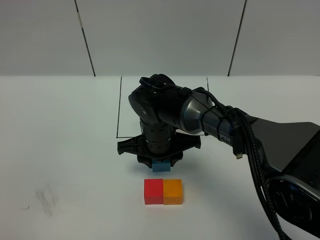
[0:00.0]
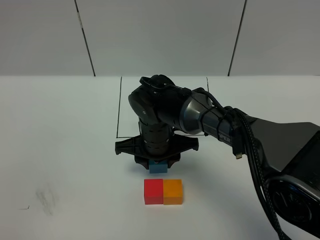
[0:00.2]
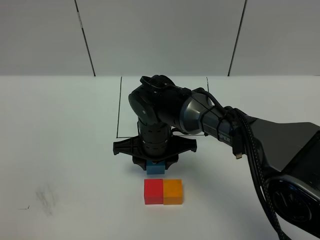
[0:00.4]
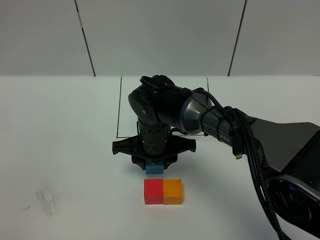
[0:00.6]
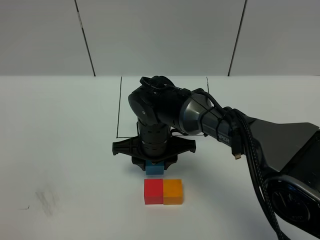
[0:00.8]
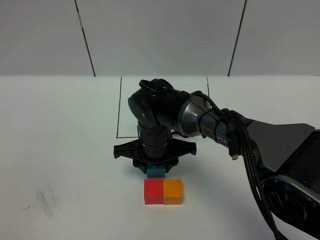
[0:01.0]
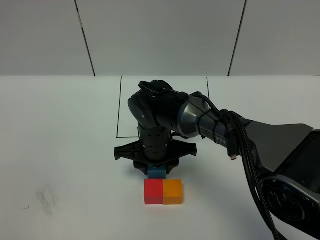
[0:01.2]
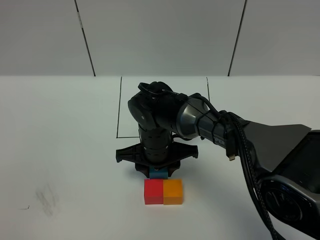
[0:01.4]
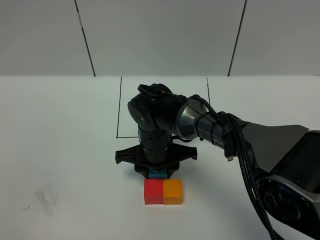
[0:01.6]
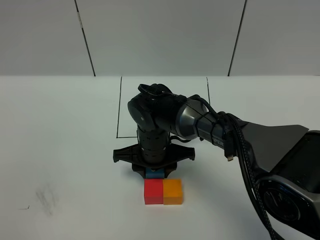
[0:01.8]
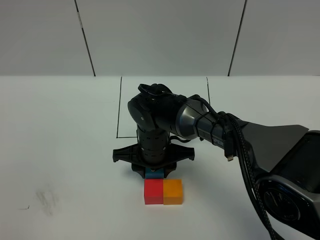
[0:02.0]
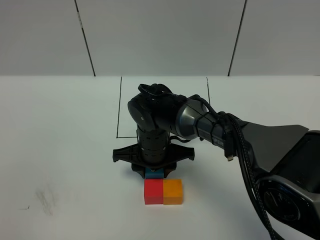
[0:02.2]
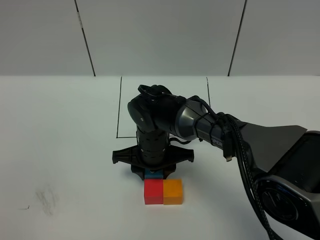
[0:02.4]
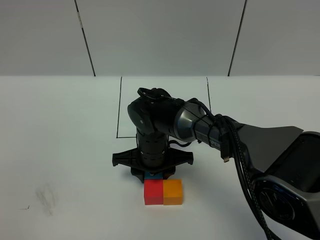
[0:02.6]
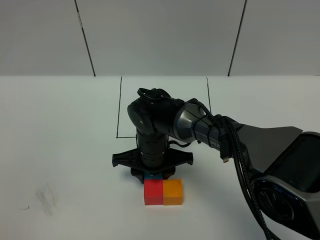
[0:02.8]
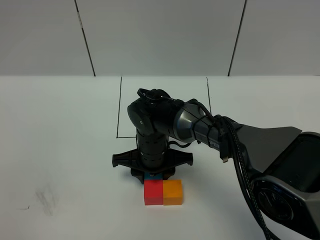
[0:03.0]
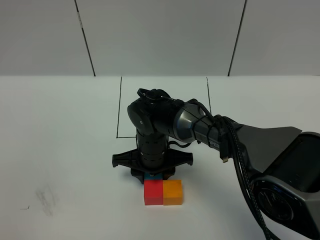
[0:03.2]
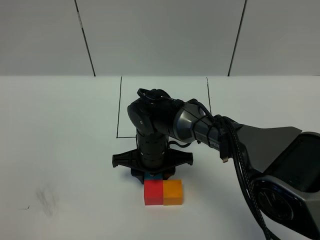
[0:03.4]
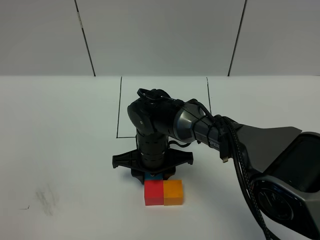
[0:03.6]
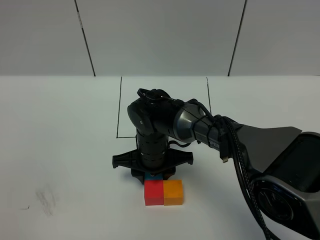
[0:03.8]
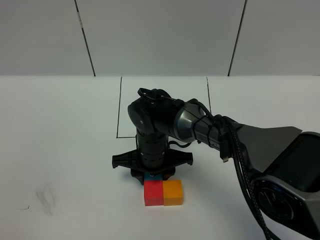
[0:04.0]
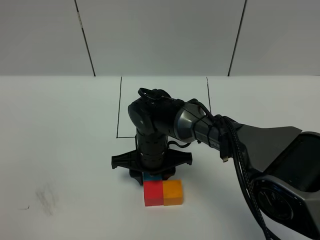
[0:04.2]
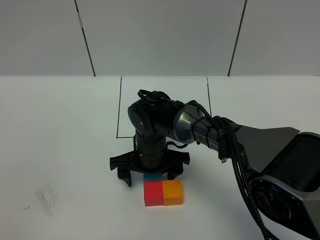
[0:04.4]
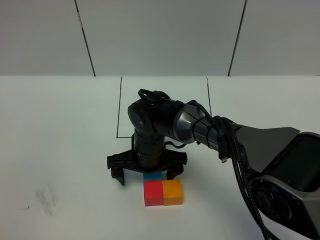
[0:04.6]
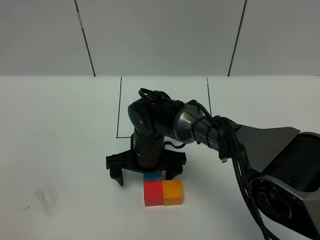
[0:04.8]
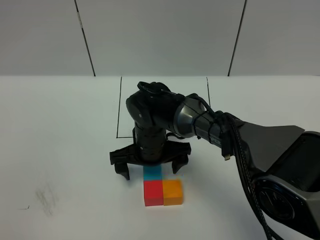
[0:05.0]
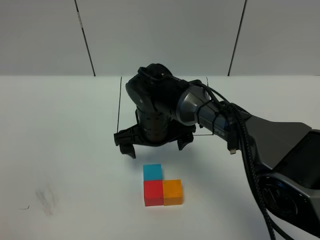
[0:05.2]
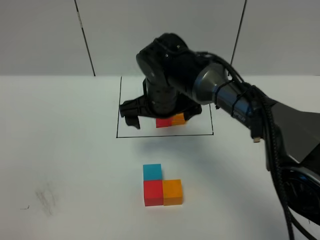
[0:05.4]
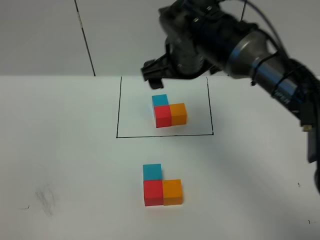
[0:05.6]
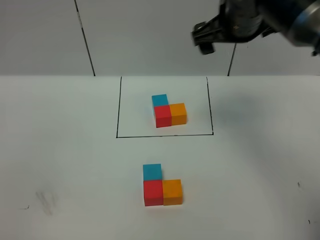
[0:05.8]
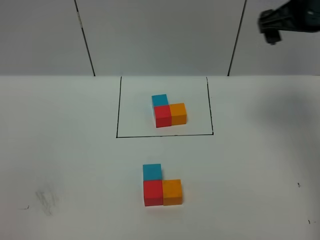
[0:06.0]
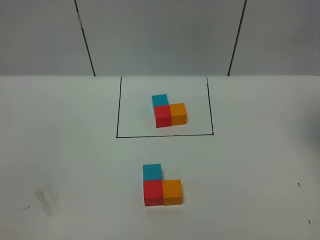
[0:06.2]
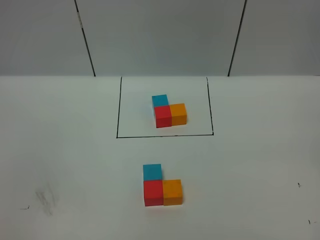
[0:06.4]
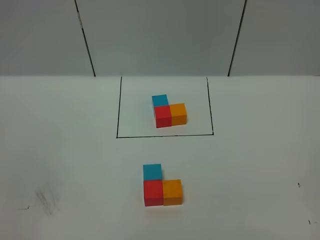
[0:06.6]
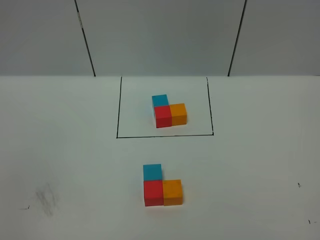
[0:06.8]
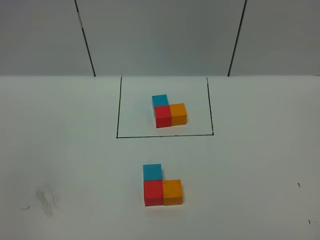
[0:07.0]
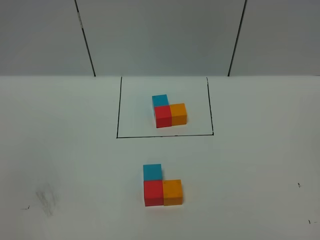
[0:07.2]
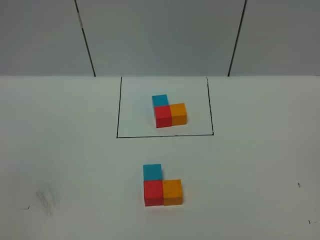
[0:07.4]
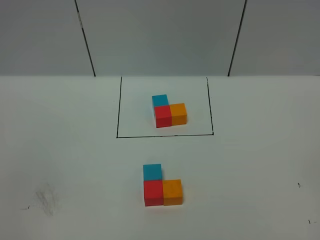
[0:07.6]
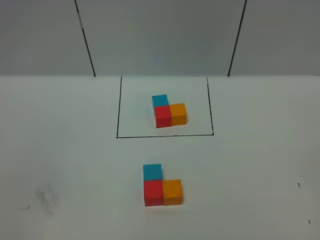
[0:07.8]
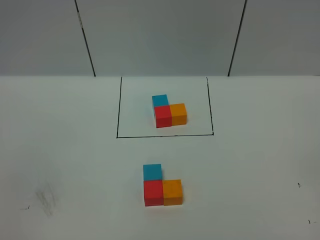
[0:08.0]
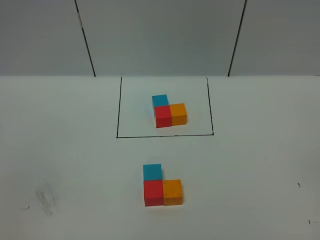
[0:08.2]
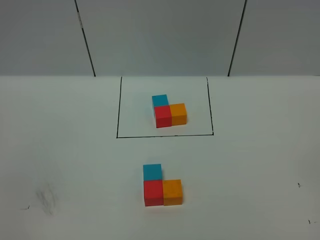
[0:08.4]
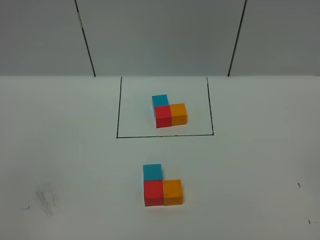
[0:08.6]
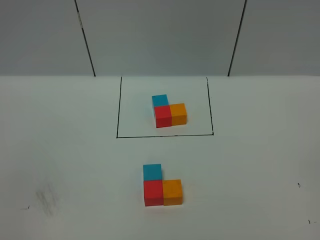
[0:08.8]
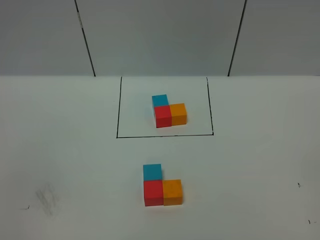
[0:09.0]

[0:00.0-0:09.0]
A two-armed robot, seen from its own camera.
Task of the whole recording: According to the building block template in front, assemble the scattered blocks together.
Step, 0:00.0 to 0:04.8: Put the blue cube on the behind of the red cube.
0:00.0 to 0:03.0: The grippers move only a little.
0:03.0 to 0:04.4: The right gripper opens up.
0:04.4 to 0:06.0: The right gripper goes about 40 cm to the right and upward.
0:06.0 to 0:07.6: The right gripper heads backward, covering some 40 cm.
0:07.6 to 0:09.0: Neither gripper changes place.

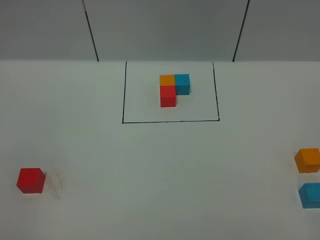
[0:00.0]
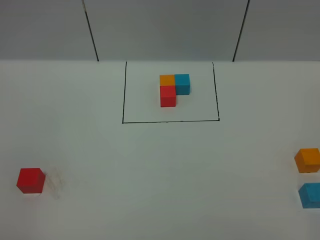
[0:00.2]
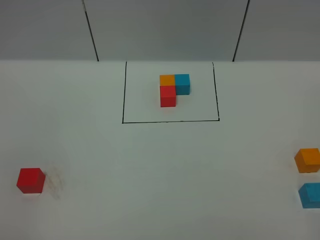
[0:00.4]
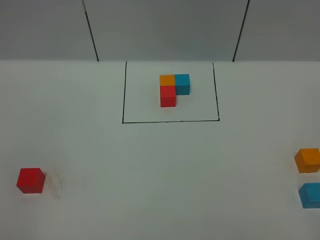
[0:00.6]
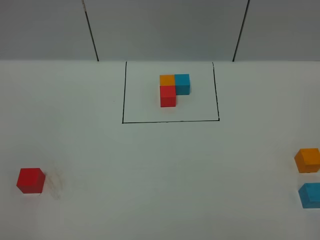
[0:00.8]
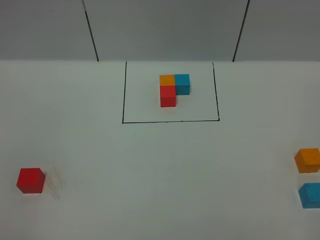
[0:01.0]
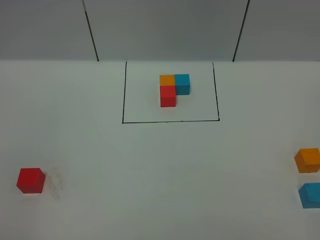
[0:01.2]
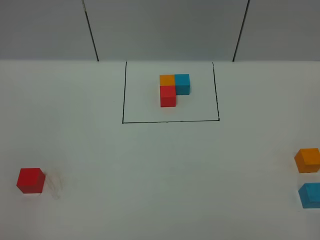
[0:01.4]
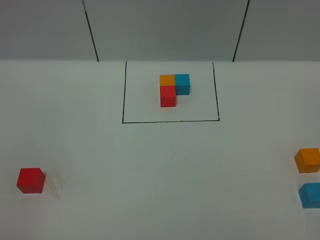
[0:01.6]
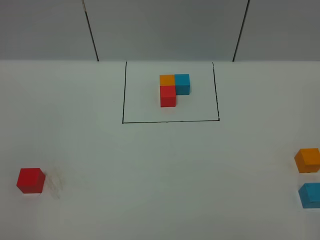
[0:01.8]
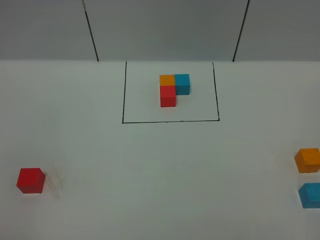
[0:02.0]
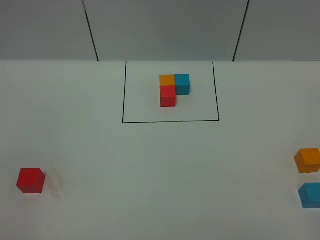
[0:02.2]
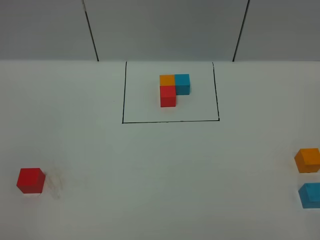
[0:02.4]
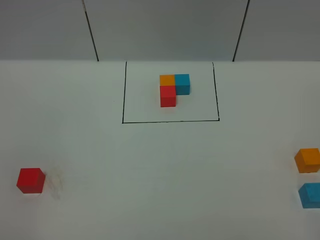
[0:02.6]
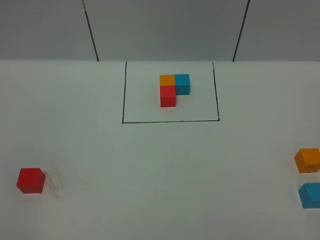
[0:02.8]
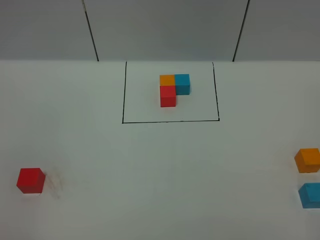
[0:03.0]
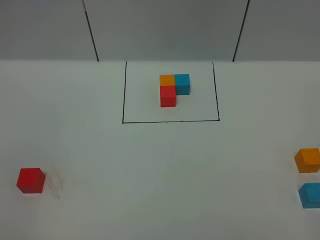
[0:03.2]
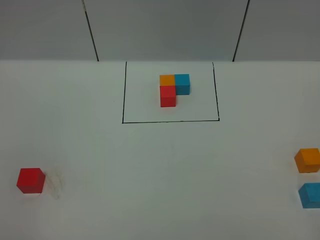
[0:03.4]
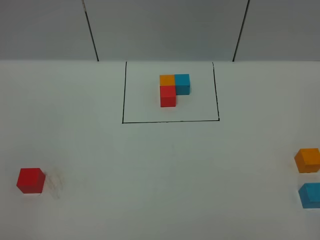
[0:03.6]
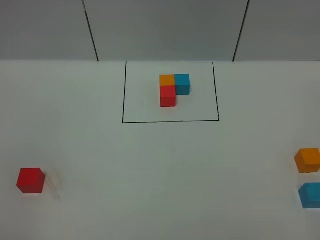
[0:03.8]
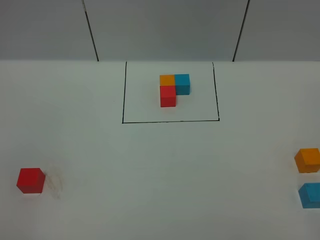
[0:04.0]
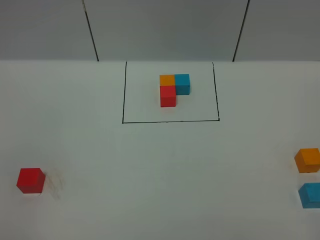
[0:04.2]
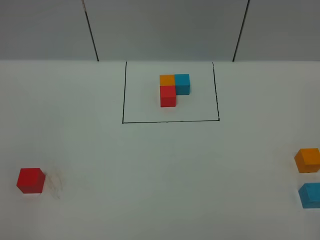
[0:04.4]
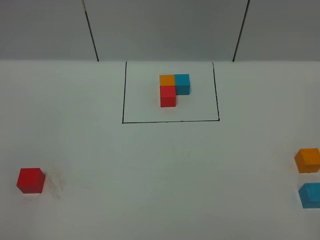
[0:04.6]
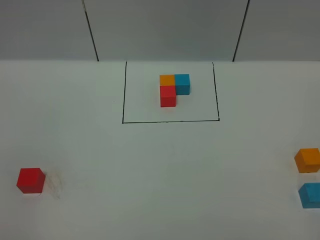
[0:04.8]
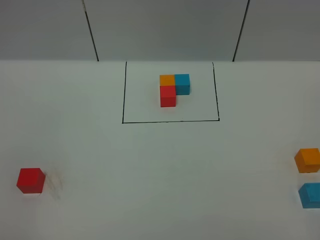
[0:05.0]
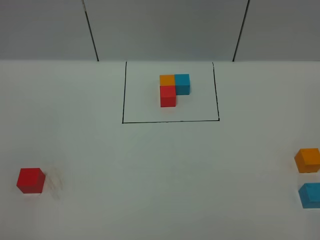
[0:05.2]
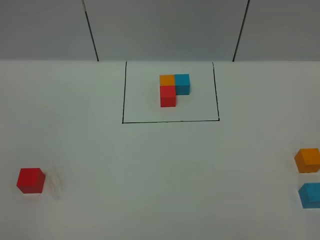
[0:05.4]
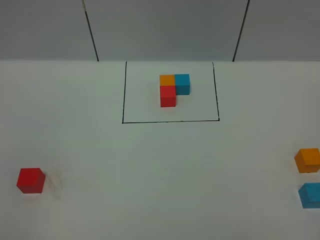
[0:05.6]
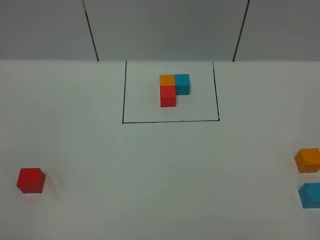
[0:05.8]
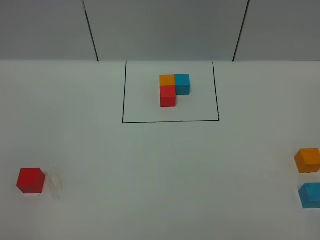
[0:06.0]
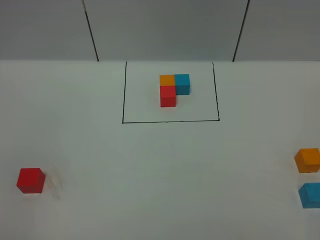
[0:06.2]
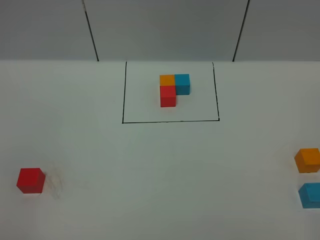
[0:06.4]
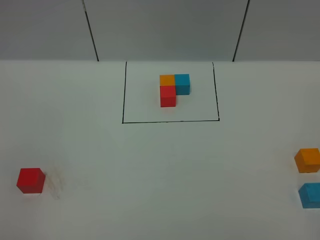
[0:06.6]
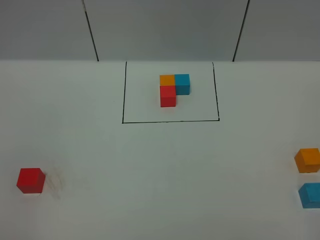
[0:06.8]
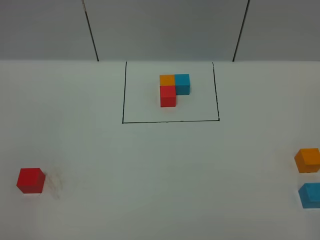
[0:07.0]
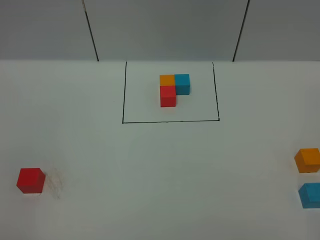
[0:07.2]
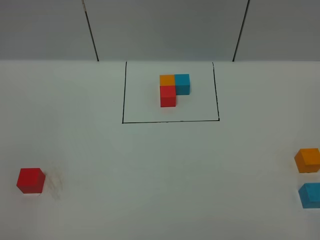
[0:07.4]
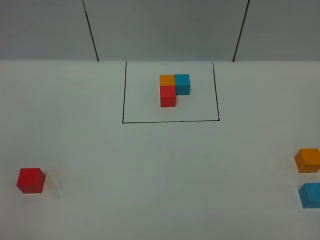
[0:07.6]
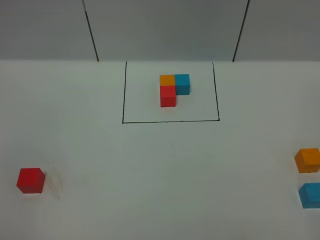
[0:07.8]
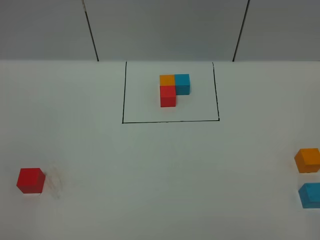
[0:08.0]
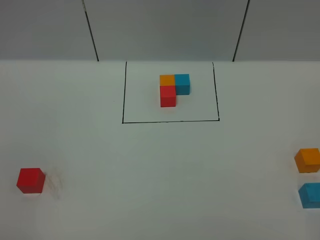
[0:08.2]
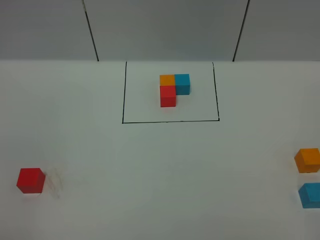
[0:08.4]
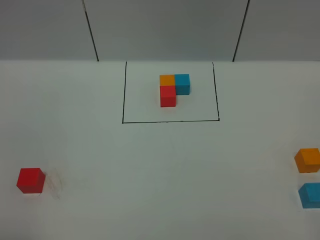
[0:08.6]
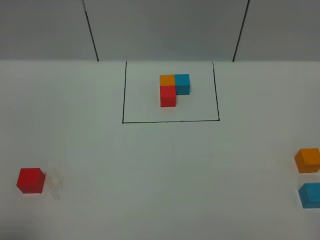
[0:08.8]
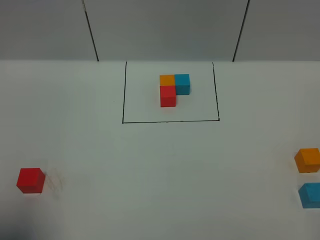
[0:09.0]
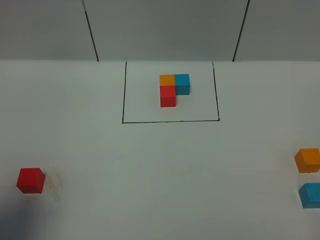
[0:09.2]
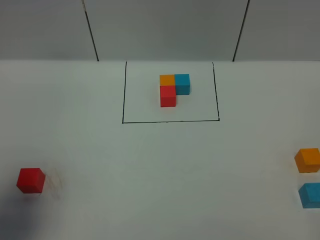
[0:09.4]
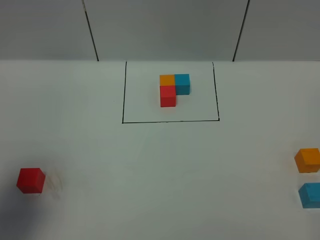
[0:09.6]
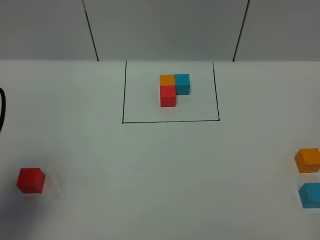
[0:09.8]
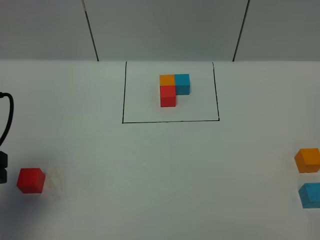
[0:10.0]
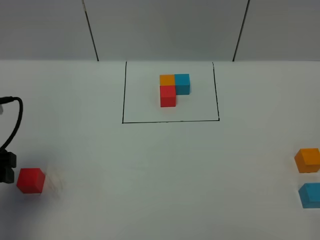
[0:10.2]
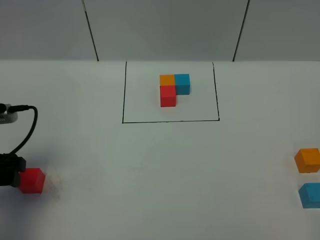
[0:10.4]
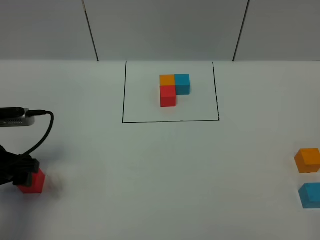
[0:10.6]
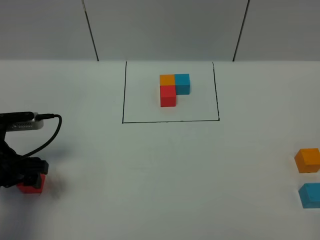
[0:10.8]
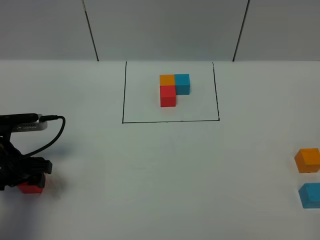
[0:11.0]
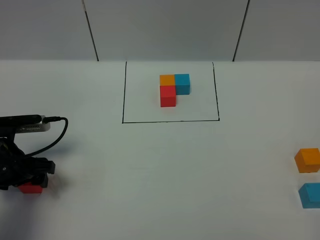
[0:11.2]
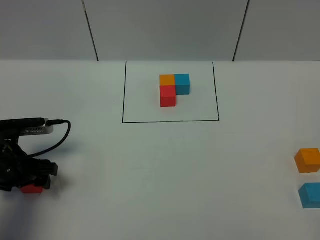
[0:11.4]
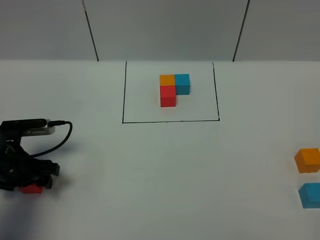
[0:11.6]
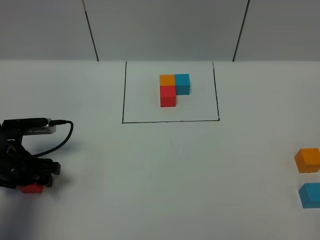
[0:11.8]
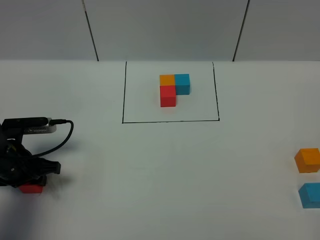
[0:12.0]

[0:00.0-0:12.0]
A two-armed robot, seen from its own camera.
Task of the whole recording: According to the building block template in front, assemble the scattered blocks together.
0:00.0 to 0:06.0: Both grippers stay put.
0:07.6 to 0:09.0: The left gripper heads forward and upward, covering some 10 cm.
0:09.0 to 0:10.4: The left gripper moves downward and forward, approximately 20 cm.
0:10.4 to 0:12.0: The left gripper shifts about 10 cm downward and forward, and closes.

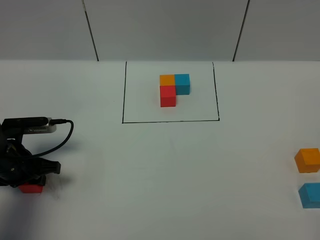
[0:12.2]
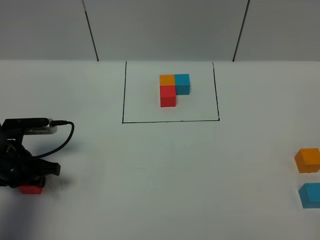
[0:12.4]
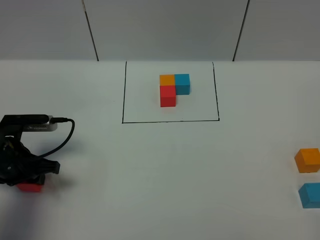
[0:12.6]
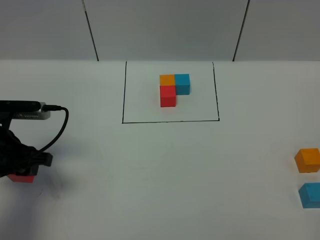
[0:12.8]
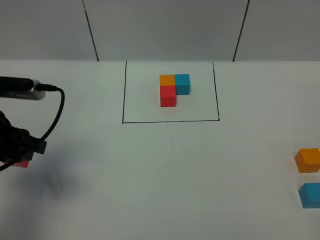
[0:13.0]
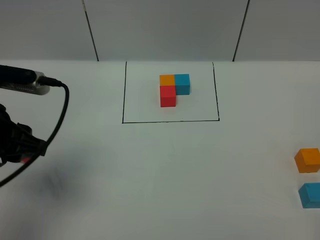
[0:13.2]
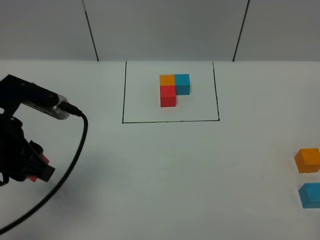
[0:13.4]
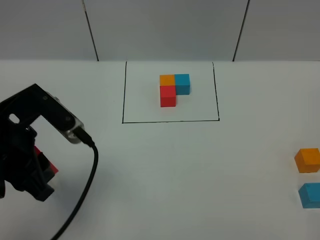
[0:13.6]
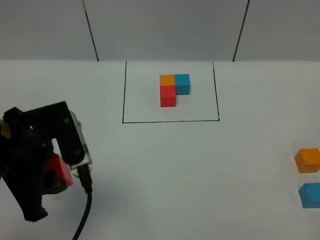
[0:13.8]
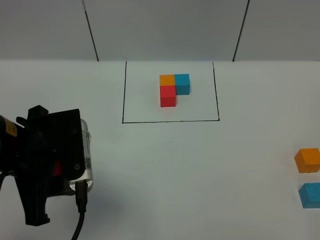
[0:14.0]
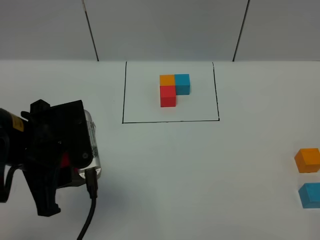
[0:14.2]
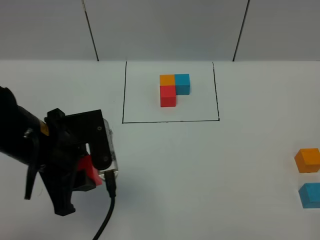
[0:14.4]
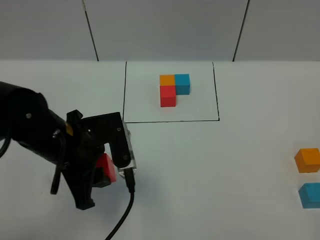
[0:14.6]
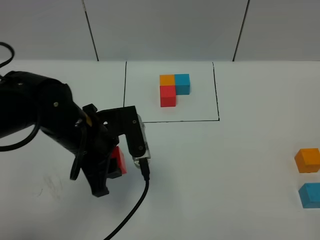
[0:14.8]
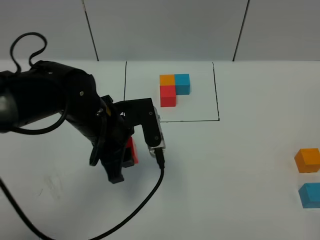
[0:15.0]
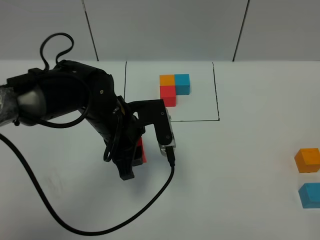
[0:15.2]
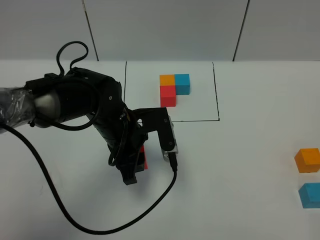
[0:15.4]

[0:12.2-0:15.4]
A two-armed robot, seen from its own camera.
Task of the whole recording: According to the building block template in front, assemble the scattered blocks together.
0:12.2 to 0:13.8: The left gripper is displaced upward, to the right and backward by some 20 cm.
0:13.8 to 0:15.4: The left gripper shifts roughly 20 cm downward, forward and to the right.
